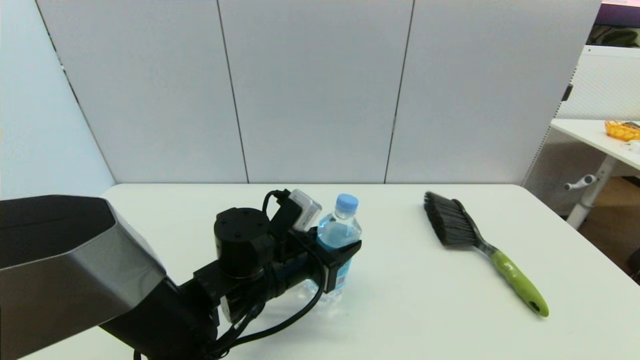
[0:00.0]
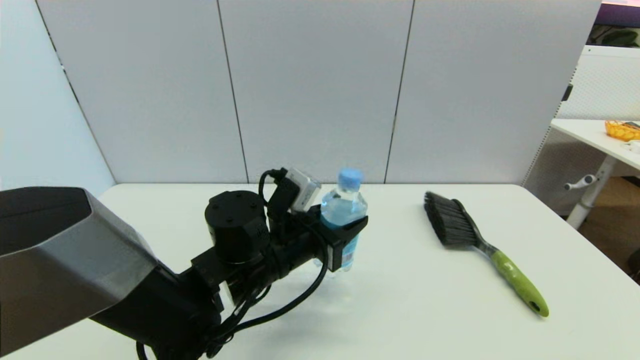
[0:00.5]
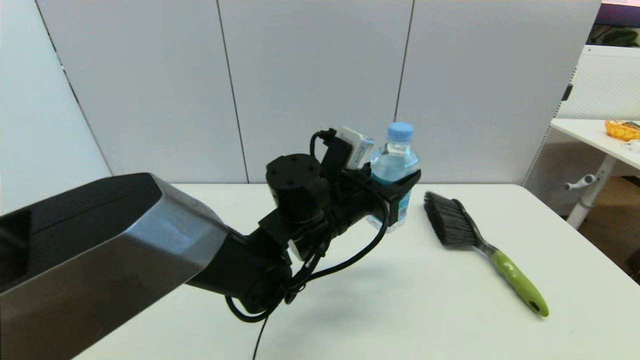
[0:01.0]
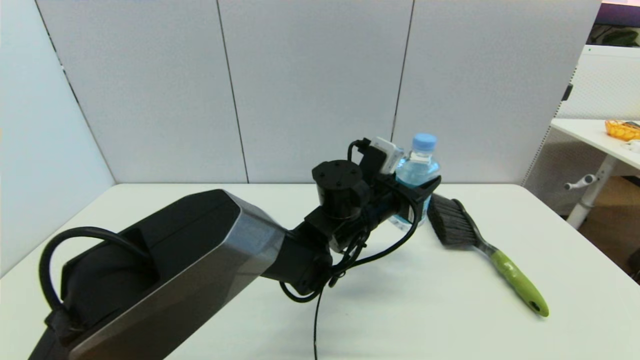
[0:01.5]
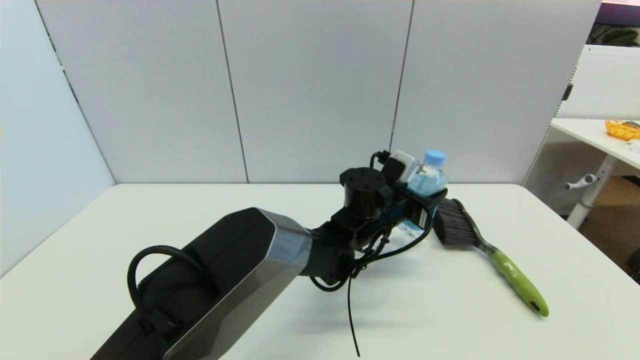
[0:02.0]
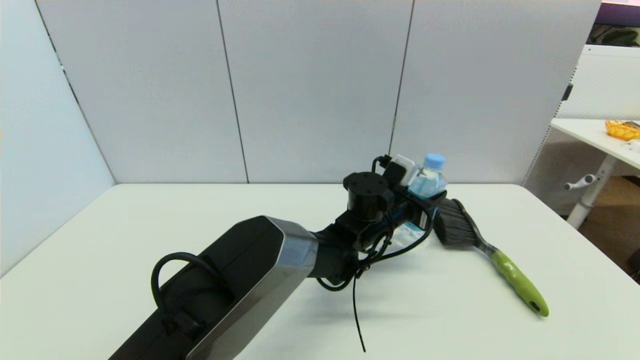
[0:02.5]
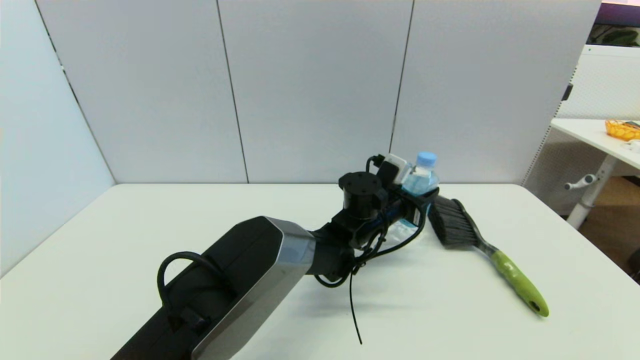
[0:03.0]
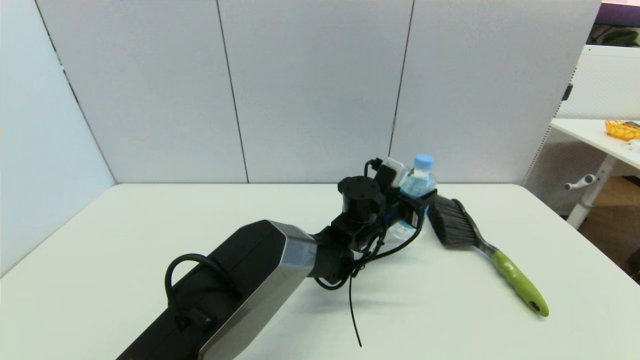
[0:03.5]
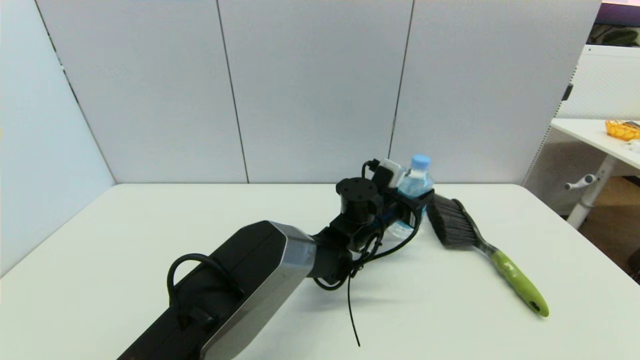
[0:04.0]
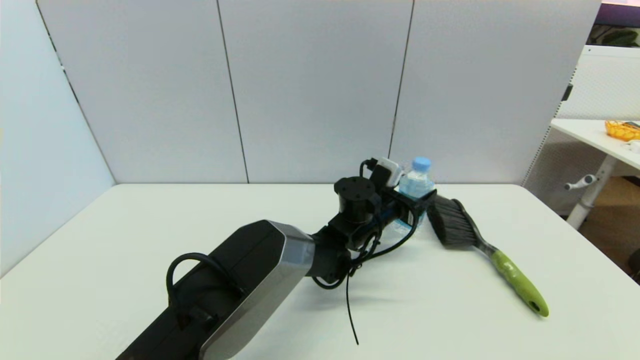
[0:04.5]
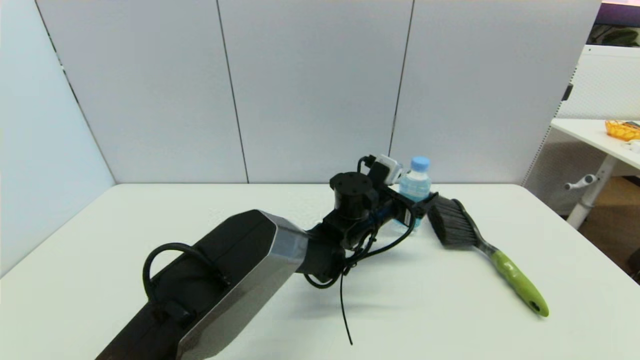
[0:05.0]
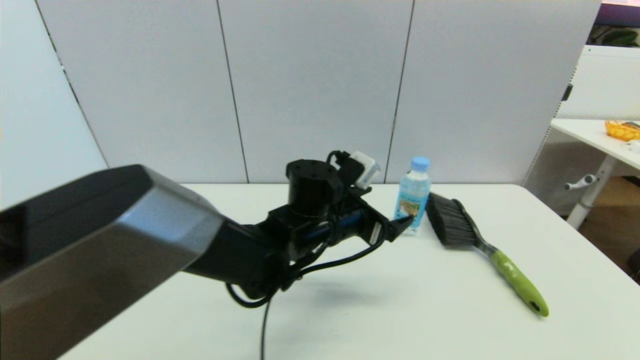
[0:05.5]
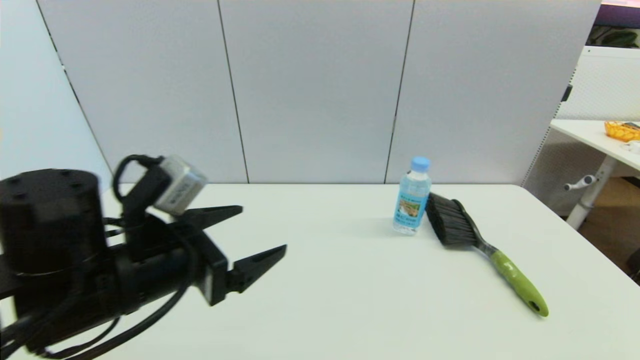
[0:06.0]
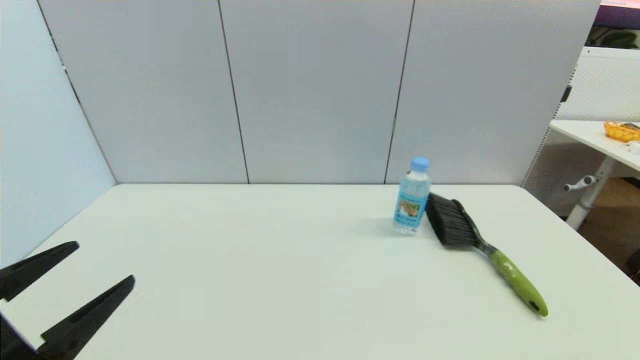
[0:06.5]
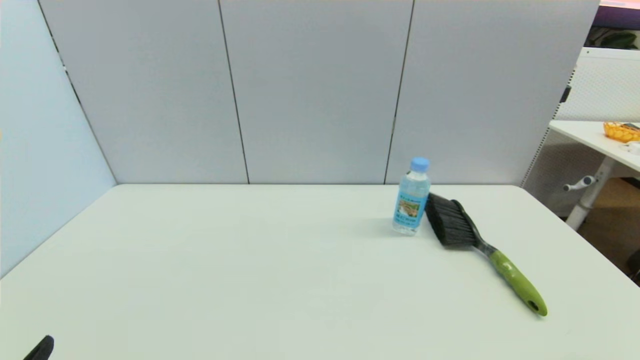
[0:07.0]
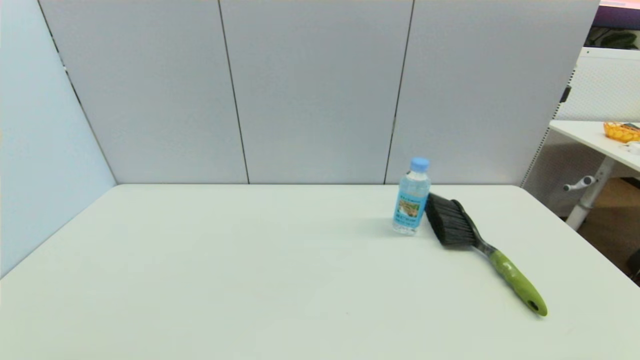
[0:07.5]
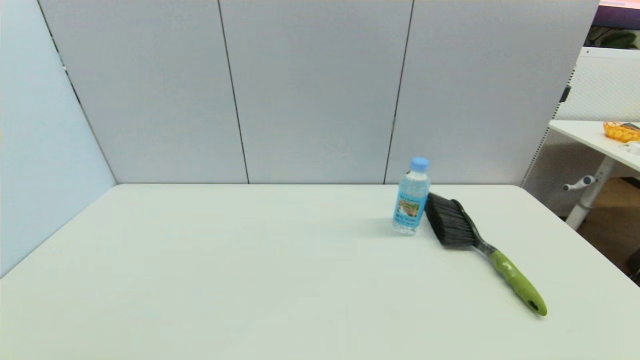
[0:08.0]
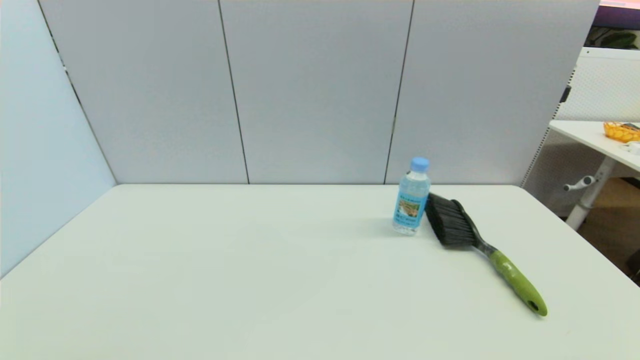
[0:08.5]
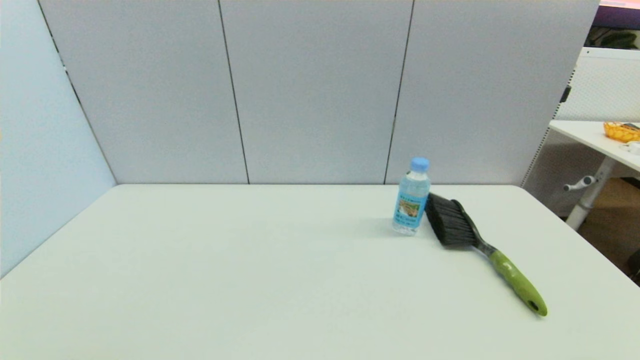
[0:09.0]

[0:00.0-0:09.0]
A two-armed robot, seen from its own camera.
Step, 0:00.5 to 0:04.5: Place the soda water on the table with left gripper.
0:00.0 to 0:02.0: The left gripper moves to the right and forward, some 20 cm.
0:02.0 to 0:04.5: The left gripper opens.
0:04.5 to 0:07.0: The left gripper heads to the left and backward, covering about 50 cm, and opens its fingers.
